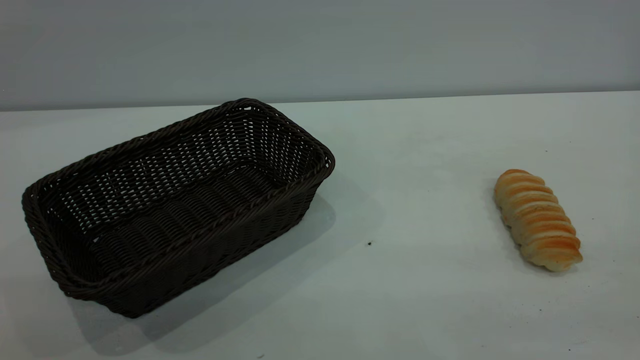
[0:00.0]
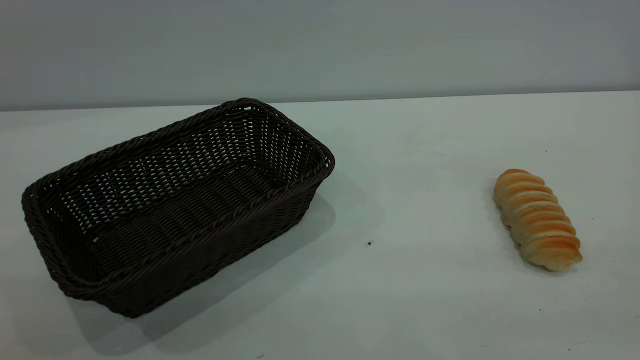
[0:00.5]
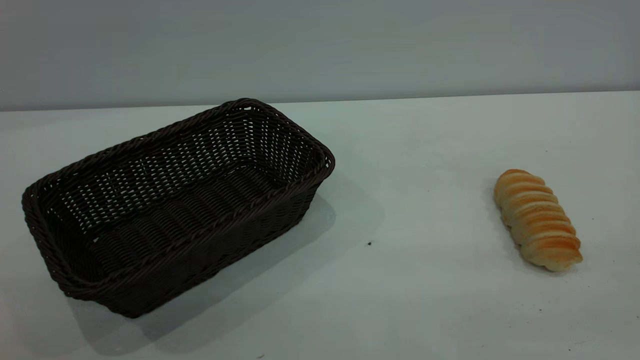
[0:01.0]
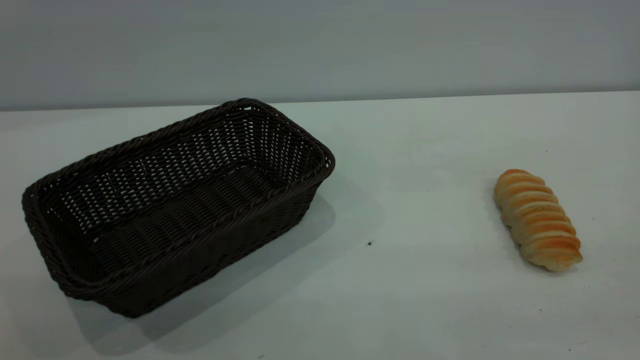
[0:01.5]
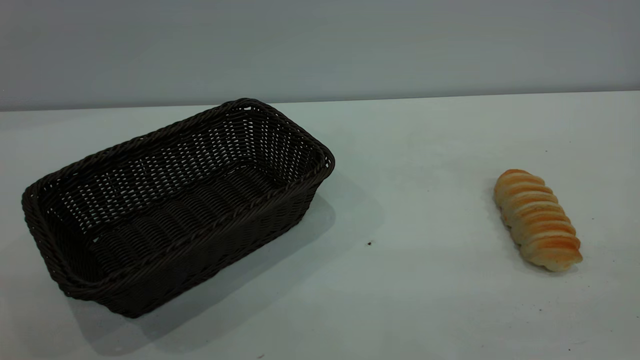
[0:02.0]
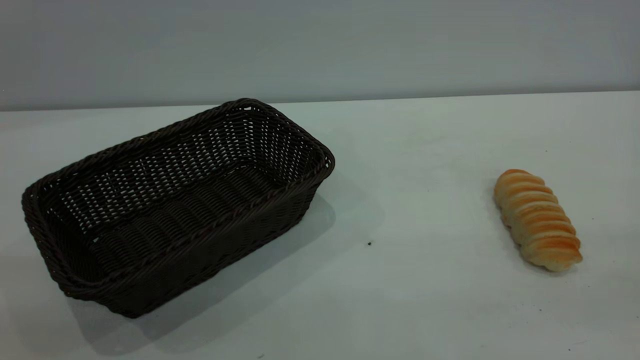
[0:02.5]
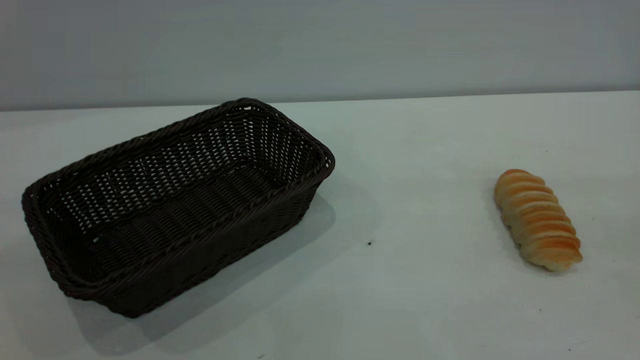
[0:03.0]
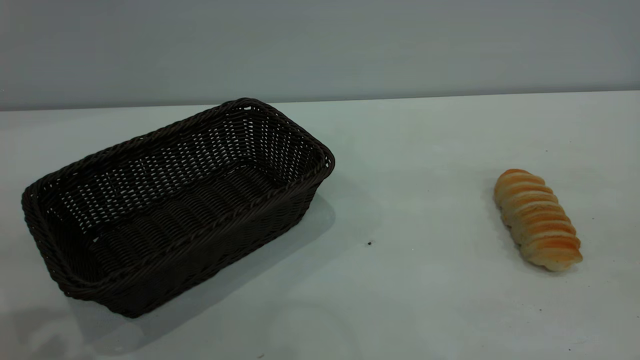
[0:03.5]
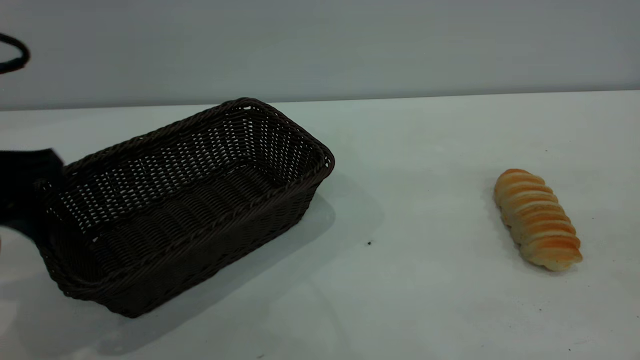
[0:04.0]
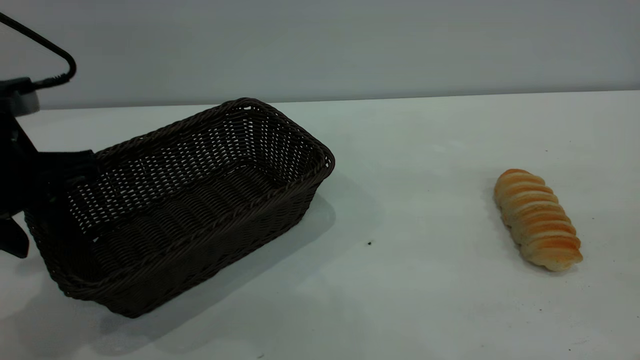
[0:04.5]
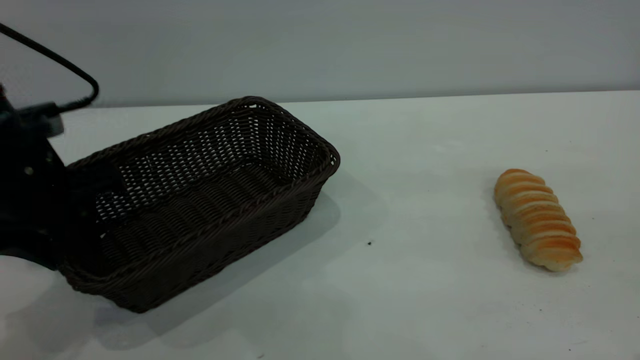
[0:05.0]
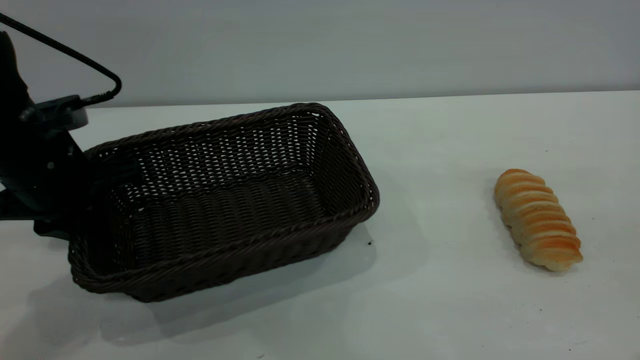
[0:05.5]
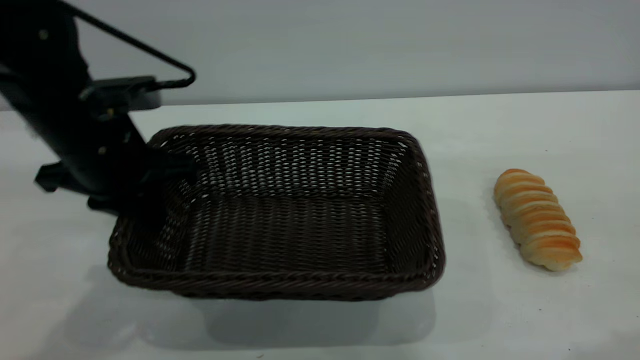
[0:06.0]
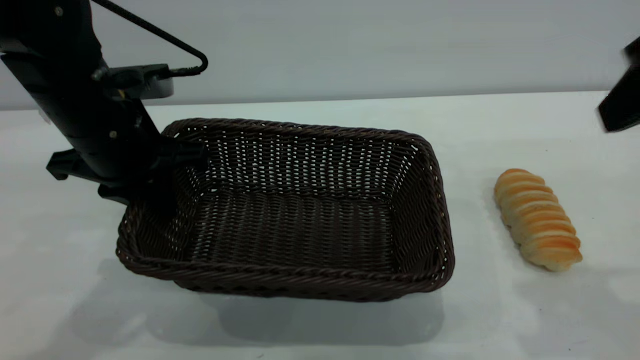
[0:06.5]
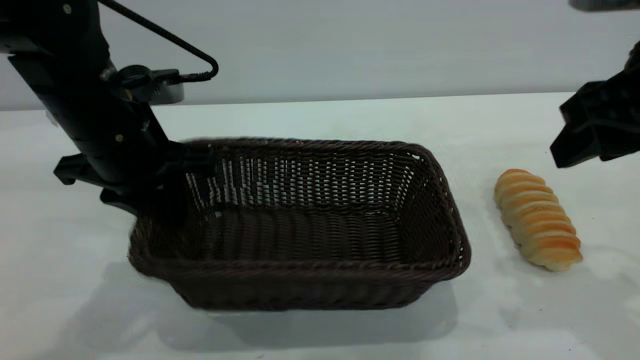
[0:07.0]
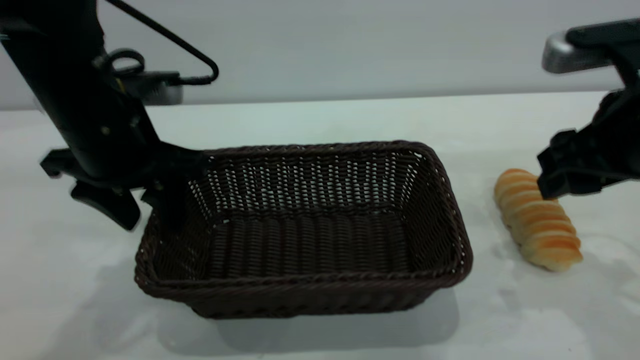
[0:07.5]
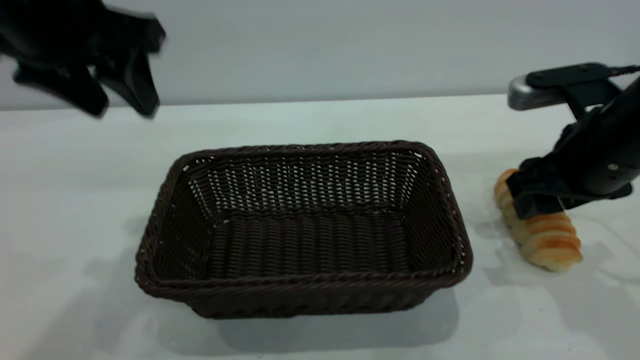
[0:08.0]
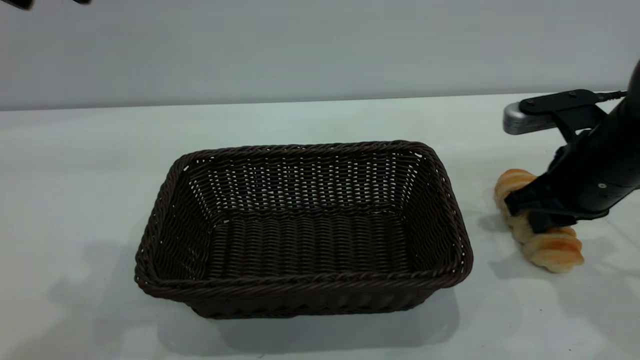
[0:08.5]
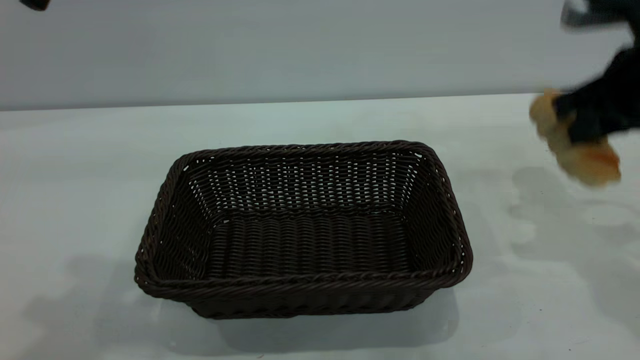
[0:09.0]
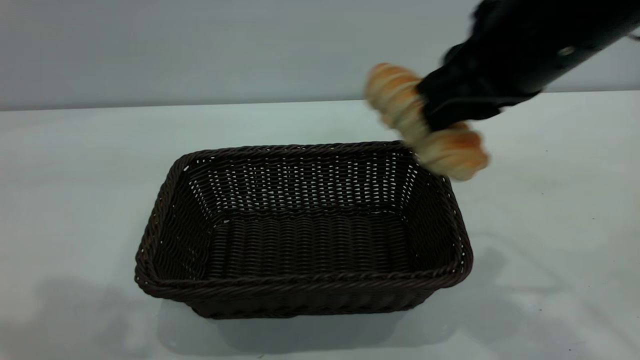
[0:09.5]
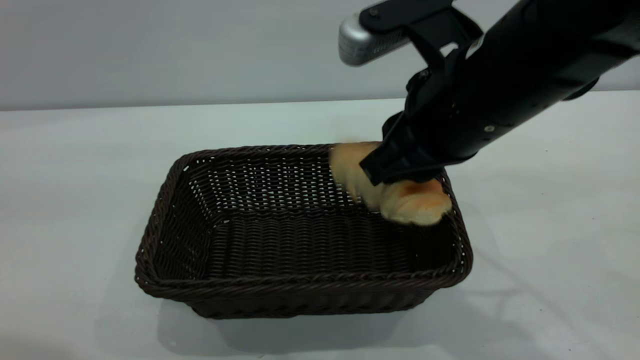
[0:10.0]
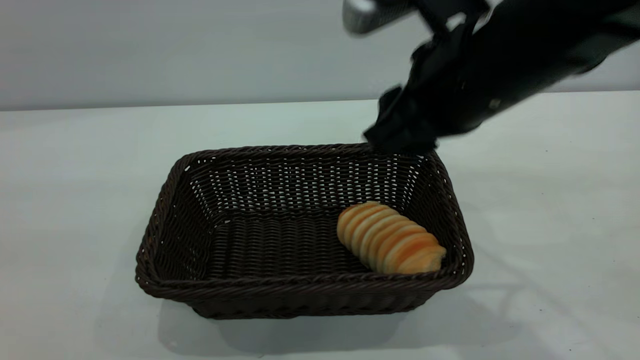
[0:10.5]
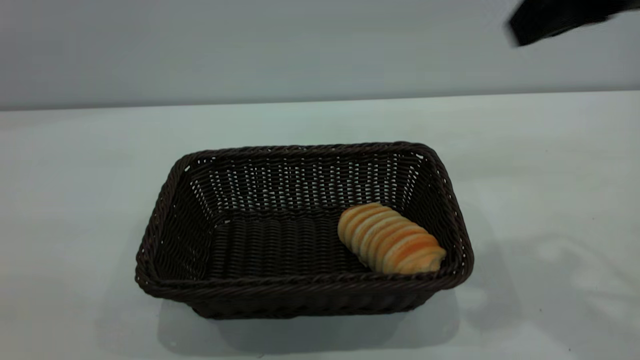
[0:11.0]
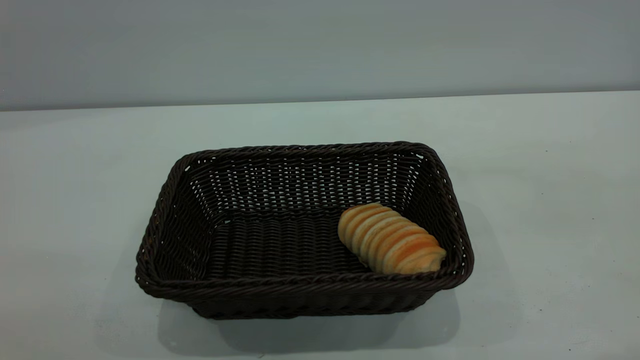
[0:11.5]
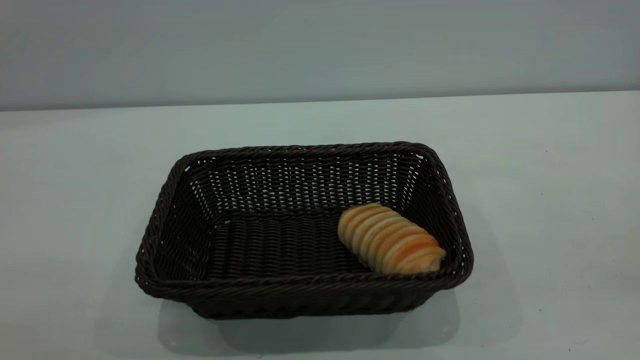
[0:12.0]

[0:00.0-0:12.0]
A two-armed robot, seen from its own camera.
Task of the whole recording: One hand grasps the black basket and places it in the middle of the table, while the other hand picks up the long bread and puts it into the black basket.
Step, 0:00.0 to 0:07.5: Move the basket to the center of view.
Step, 0:09.0 to 0:10.5: place the bread into the basket.
0:02.0 to 0:04.0: The left gripper is displaced forward and downward by some 30 cm.
0:04.0 to 0:06.0: The left gripper heads forward and to the right, covering approximately 10 cm, and closes.
0:06.0 to 0:08.0: The right gripper goes some 25 cm downward and forward. The left gripper travels upward by some 15 cm, and opens its fingers.
0:08.0 to 0:10.0: The right gripper shifts approximately 15 cm to the left and upward, and closes up; the left gripper moves backward and upward, approximately 20 cm.
0:10.0 to 0:12.0: The left gripper travels backward and downward by some 15 cm, while the right gripper travels backward, upward and to the right by some 40 cm.
